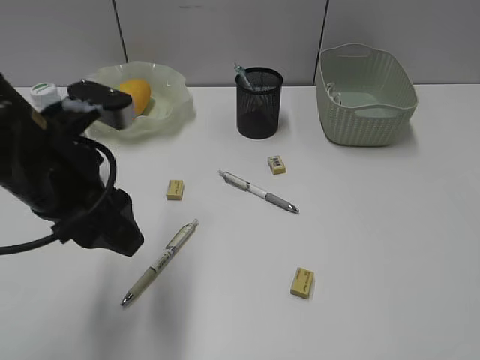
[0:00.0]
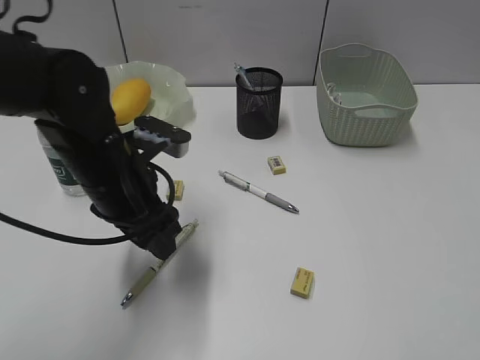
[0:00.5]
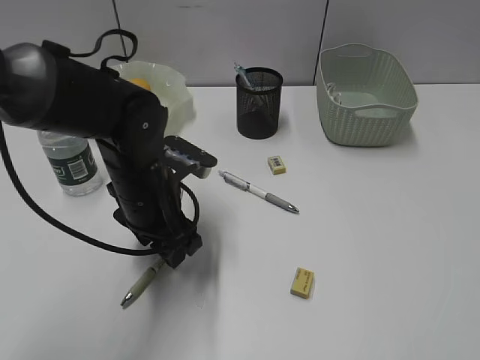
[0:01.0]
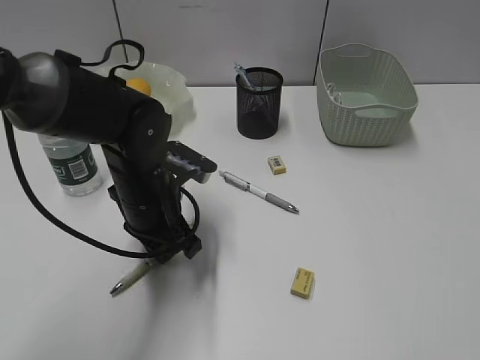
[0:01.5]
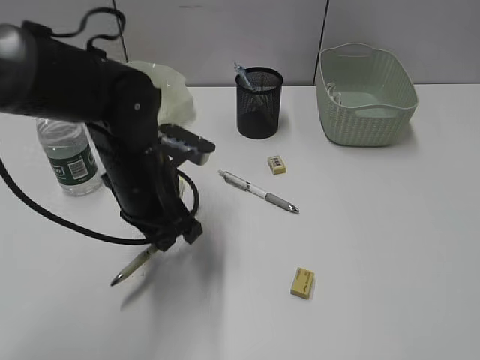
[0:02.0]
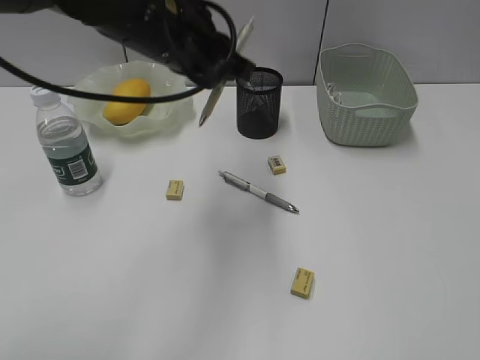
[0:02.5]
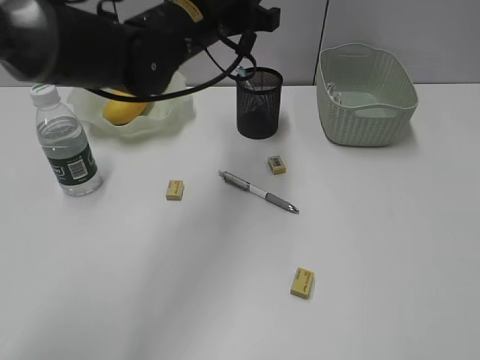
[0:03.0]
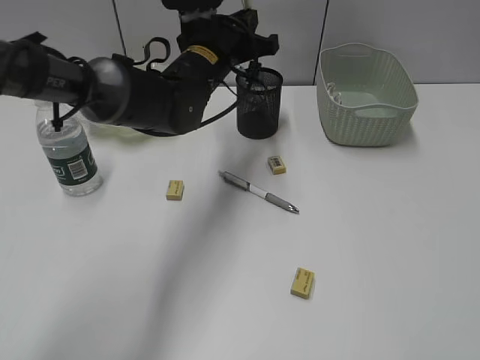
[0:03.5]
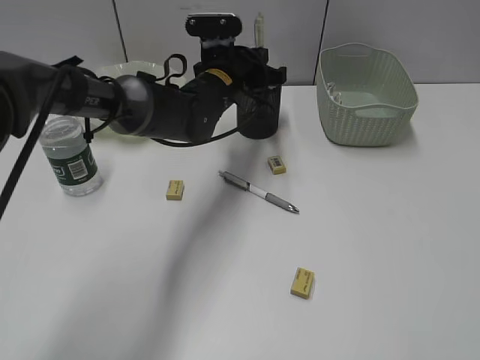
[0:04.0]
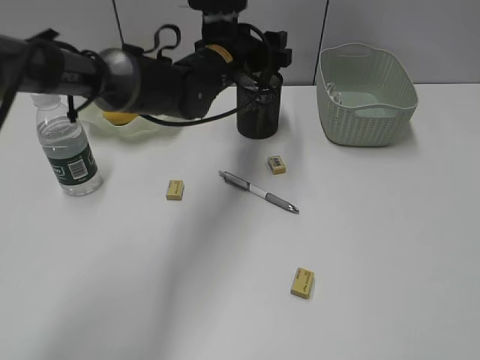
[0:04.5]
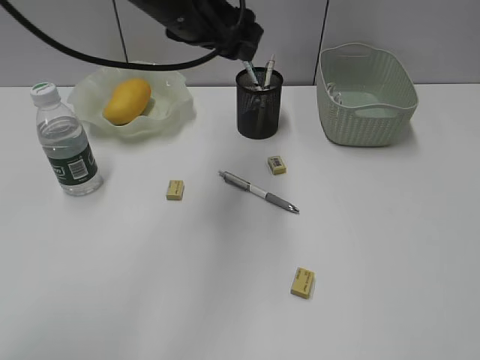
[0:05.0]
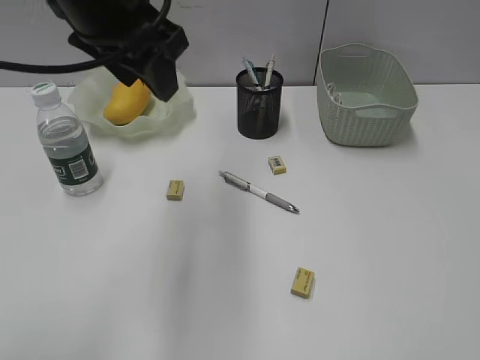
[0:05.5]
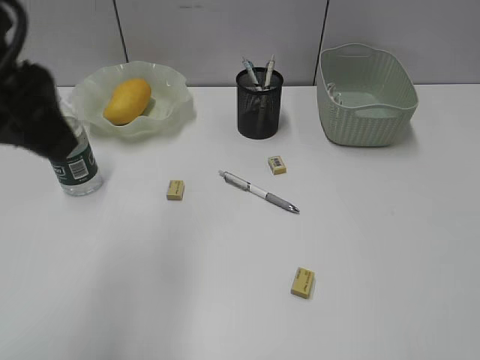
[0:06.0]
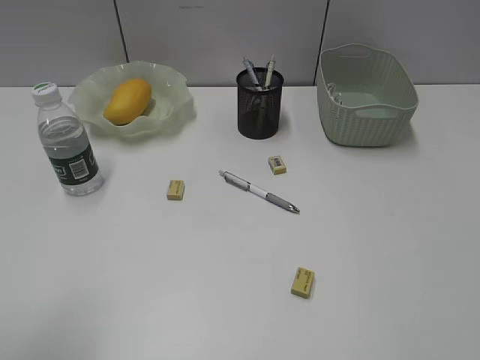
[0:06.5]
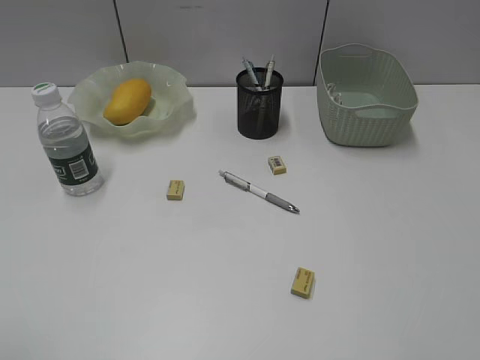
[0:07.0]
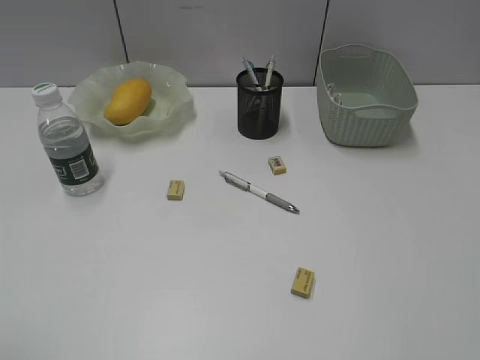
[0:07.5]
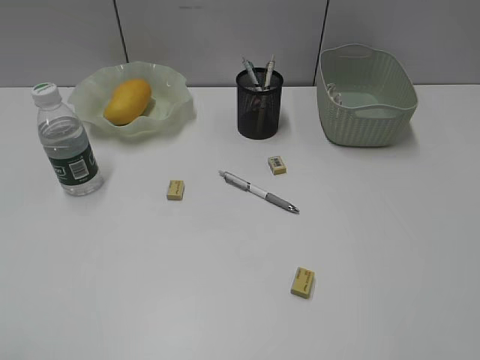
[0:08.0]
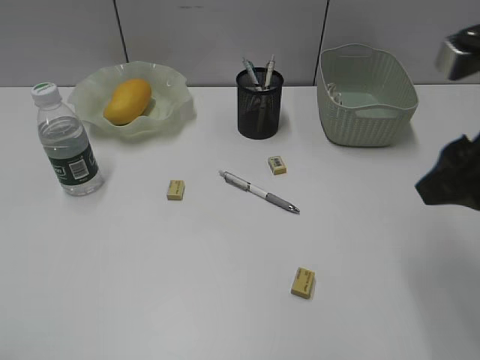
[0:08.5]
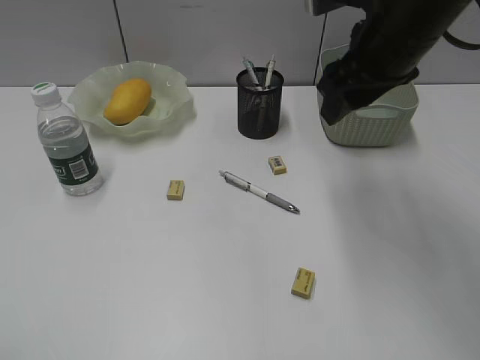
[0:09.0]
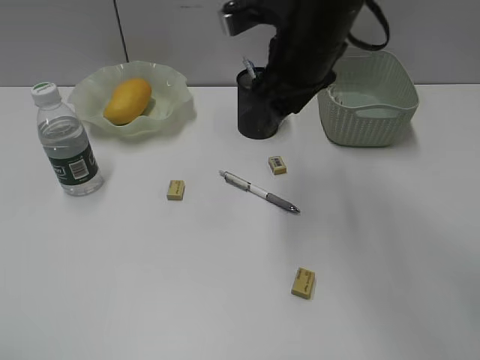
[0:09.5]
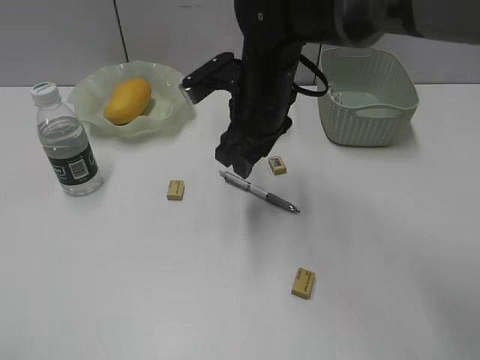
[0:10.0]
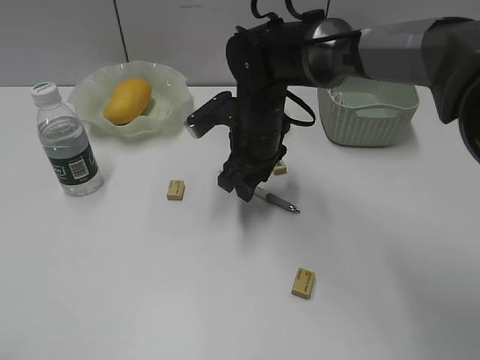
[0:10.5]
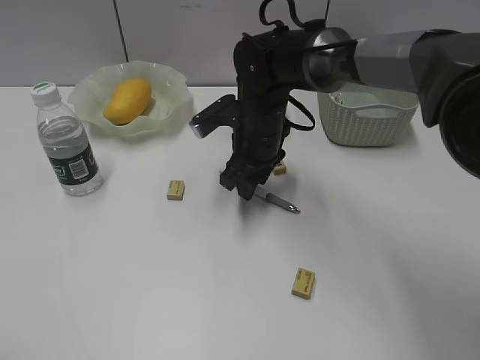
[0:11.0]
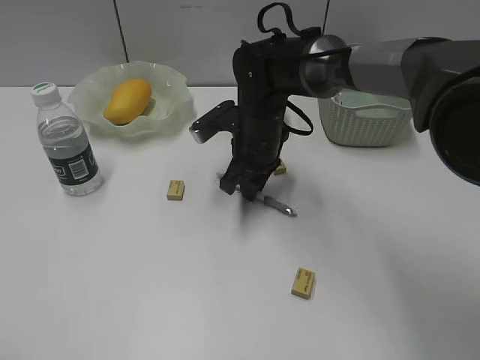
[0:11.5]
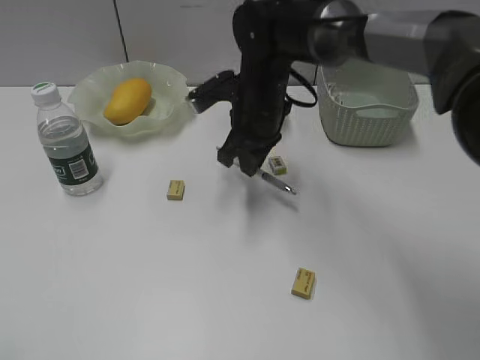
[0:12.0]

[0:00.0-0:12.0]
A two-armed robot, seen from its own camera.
Step, 0:02.0 to 0:04.0: Place the yellow pen in pen holder with left gripper.
Step, 0:04.5 to 0:11.5: Grasp the gray pen with right gripper.
0:00.0 to 0:02.0: The left gripper heads downward, to the right and forward, covering about 15 cm, and closes.
0:02.0 to 0:04.0: The left gripper shifts some 20 cm forward and to the right.
0:04.0 to 0:06.0: The left gripper is displaced backward, upward and to the left by some 35 cm, and opens its fingers.
0:06.0 to 0:08.0: The left gripper heads backward and to the left, covering about 25 cm.
0:08.0 to 0:10.0: The right gripper moves forward and to the left, about 40 cm.
0:10.0 to 0:12.0: The right gripper closes up.

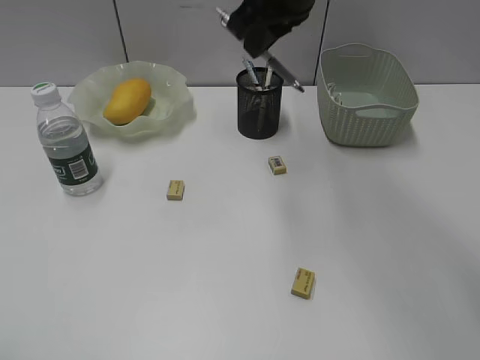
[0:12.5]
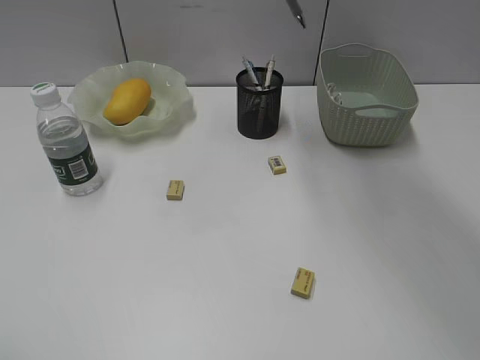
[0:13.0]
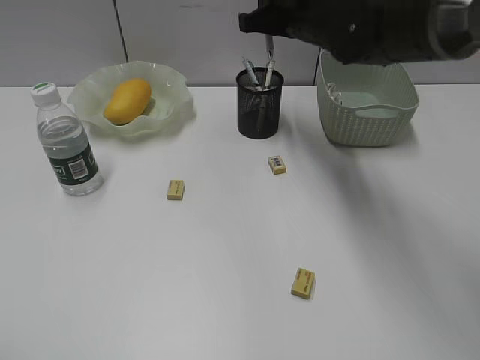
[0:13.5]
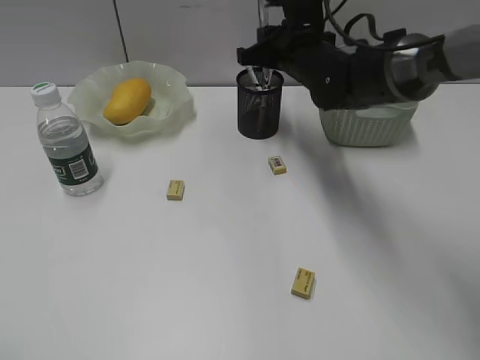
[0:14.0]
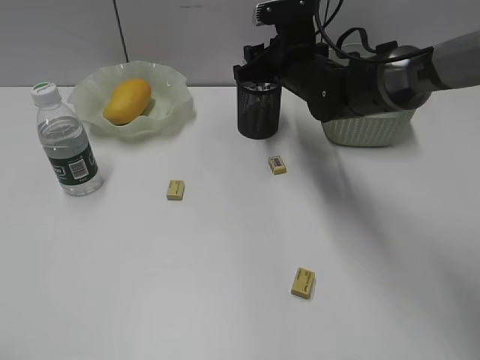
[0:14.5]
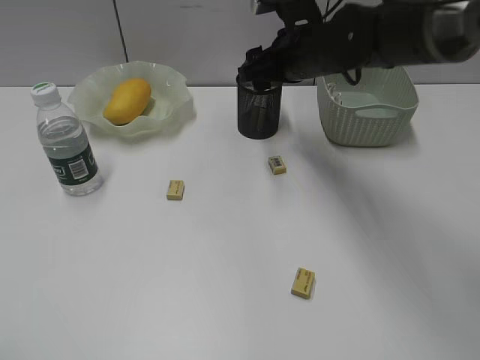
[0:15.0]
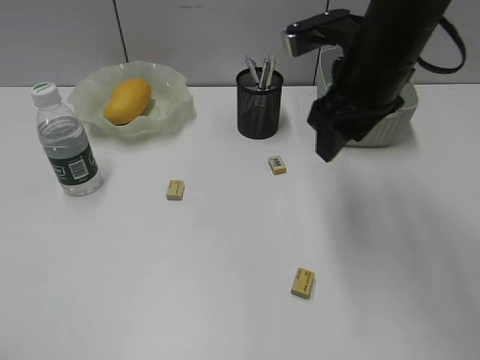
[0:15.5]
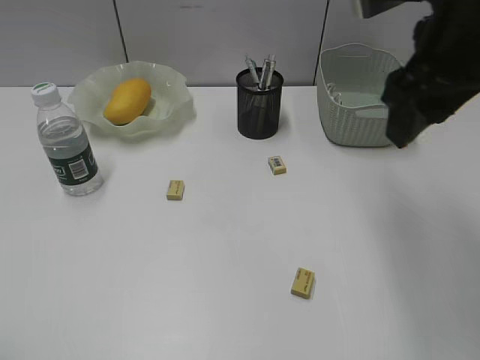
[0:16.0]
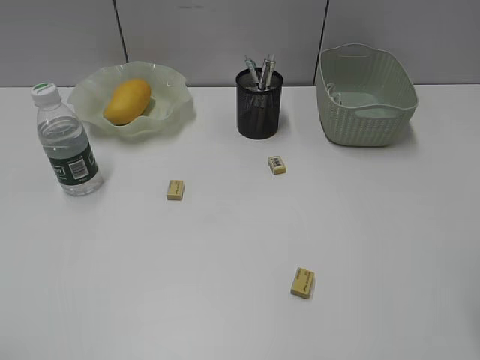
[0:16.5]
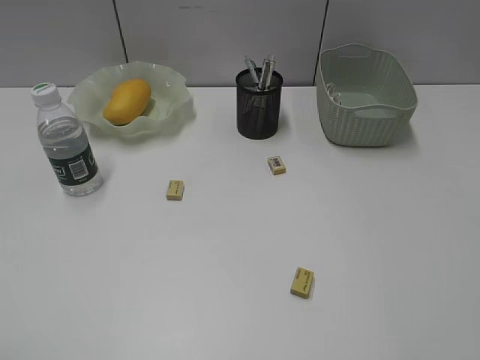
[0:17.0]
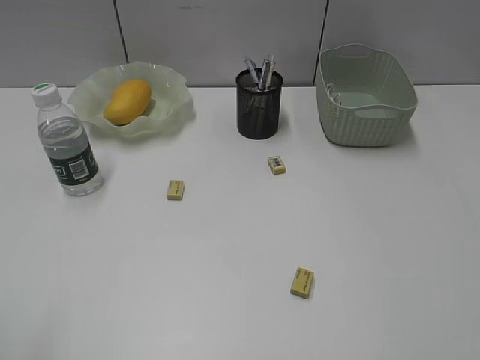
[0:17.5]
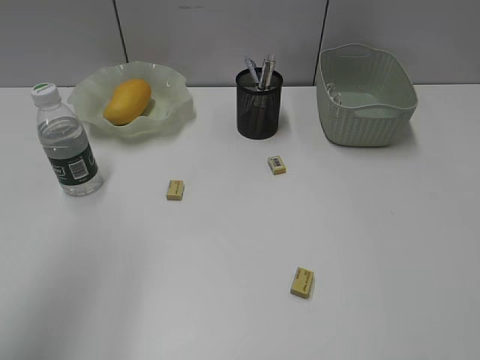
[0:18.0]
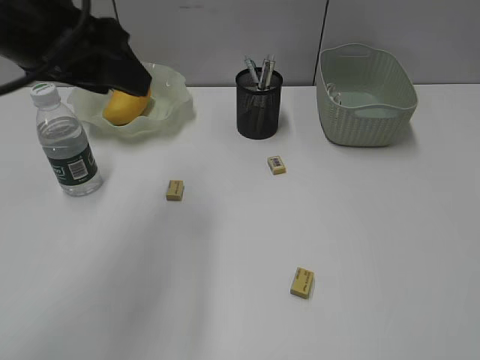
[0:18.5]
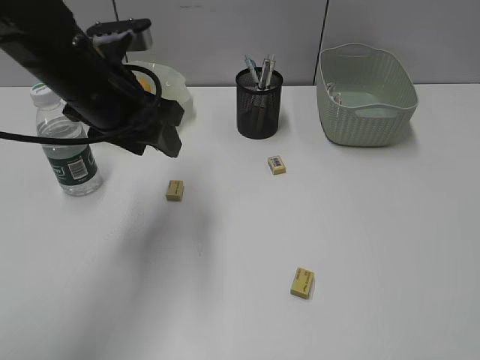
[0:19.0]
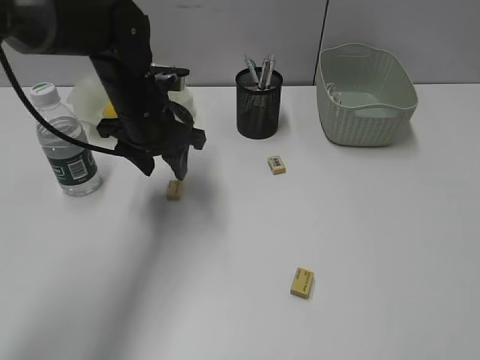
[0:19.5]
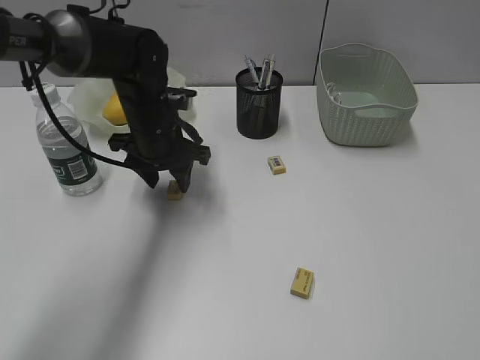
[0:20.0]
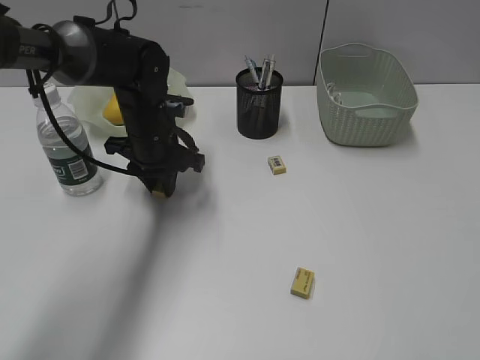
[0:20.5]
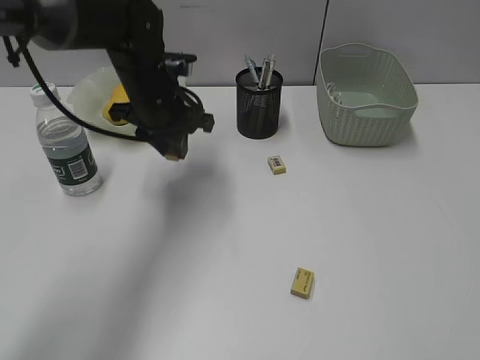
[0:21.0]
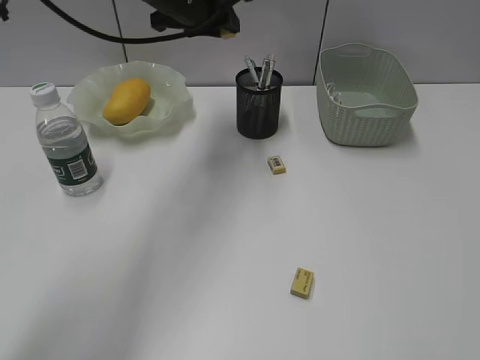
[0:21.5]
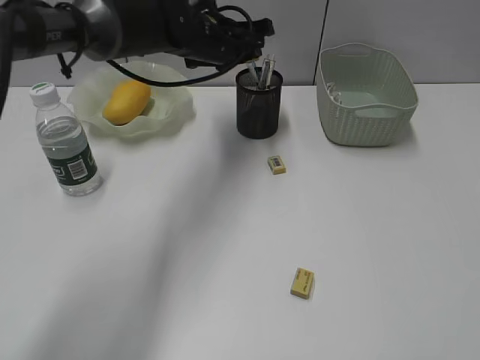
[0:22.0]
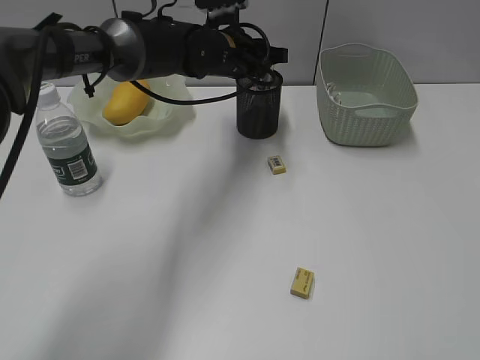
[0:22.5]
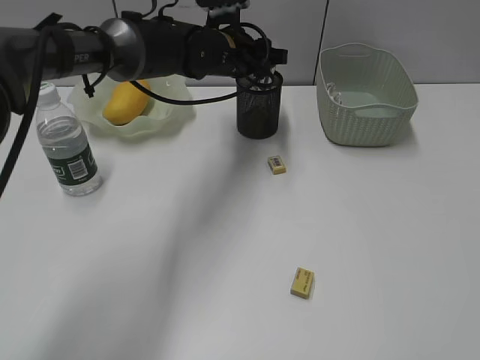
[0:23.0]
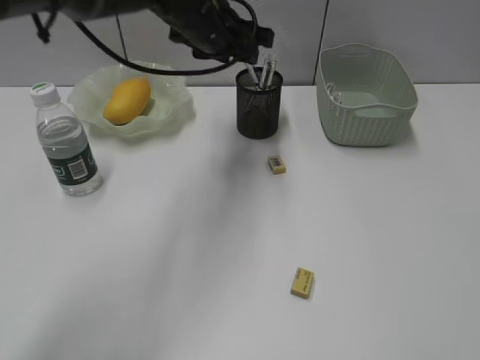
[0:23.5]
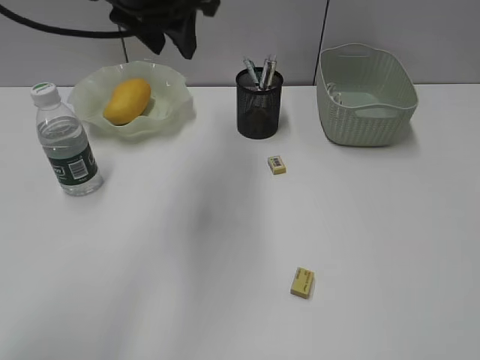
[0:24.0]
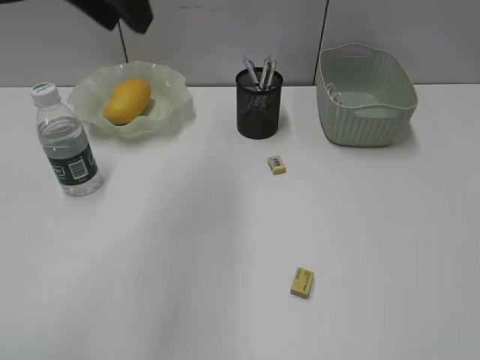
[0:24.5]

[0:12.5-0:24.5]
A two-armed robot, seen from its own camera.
Step, 0:12.5 to 0:14.5: Place the gray pen in pen holder with right gripper.
Step, 0:15.0 to 0:20.5: Grasp the eraser with left gripper.
Step, 0:21.0 to 0:23.0: Place the eraser in pen holder with left gripper.
0:12.5 to 0:14.5: The right gripper goes approximately 15 cm downward and forward, and opens.
0:14.5 to 0:16.5: The right gripper heads backward, upward and to the right, covering approximately 40 cm.
0:16.5 to 0:18.5: The left gripper heads forward and to the right, covering some 30 cm; the right gripper moves backward and to the right, some 15 cm.
0:18.5 to 0:20.5: The left gripper goes roughly 25 cm downward and forward, and closes.
0:20.5 to 0:22.5: The left gripper heads to the right, forward and upward, covering some 15 cm.
0:22.5 to 0:24.5: The left gripper shifts about 30 cm upward, backward and to the left.

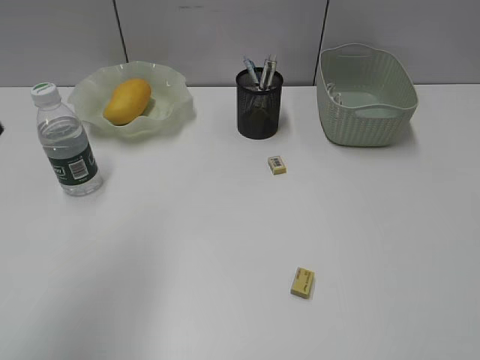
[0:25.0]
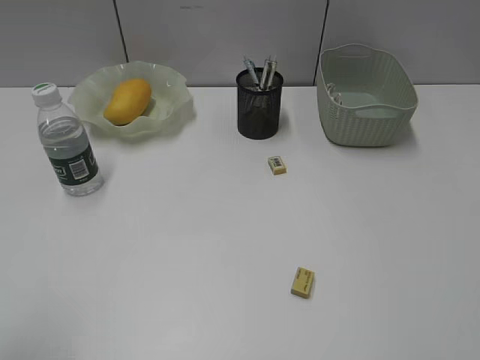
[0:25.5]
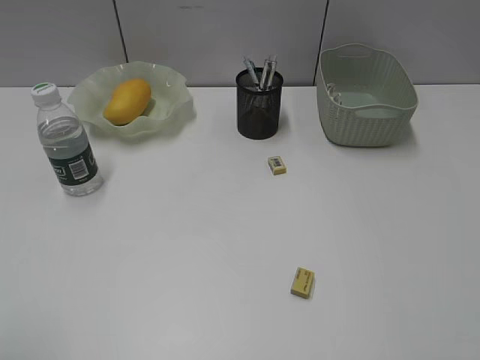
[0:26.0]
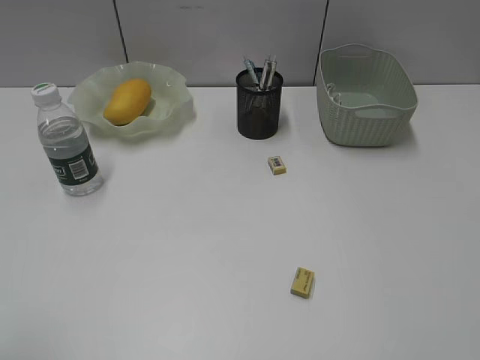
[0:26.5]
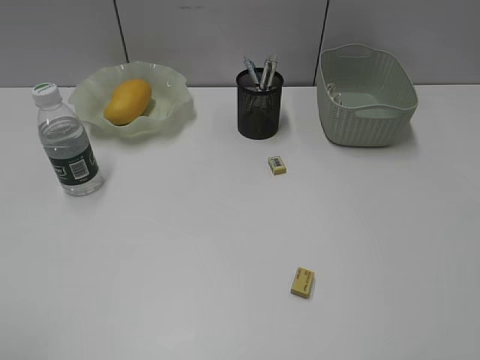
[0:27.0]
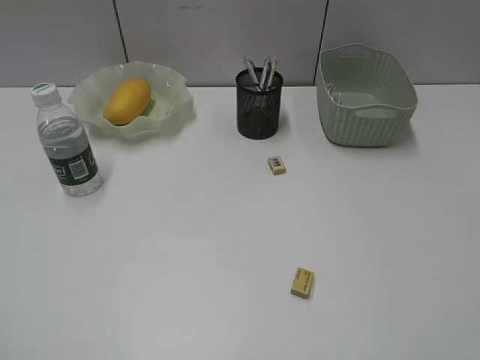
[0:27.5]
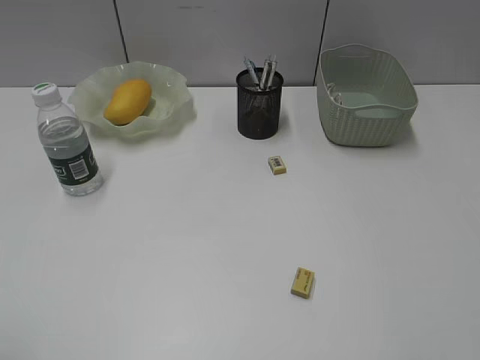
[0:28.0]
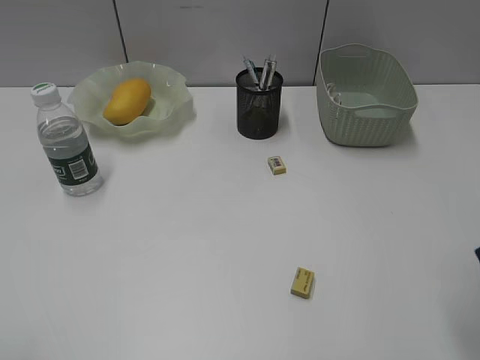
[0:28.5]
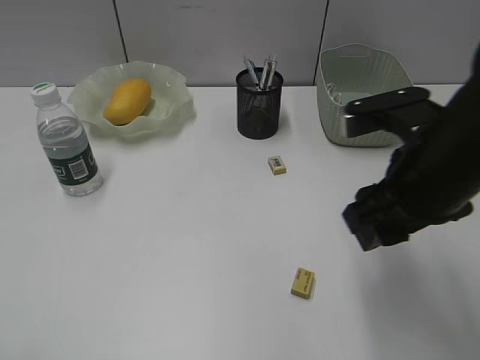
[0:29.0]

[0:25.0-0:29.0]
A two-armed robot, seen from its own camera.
0:25.0 to 0:27.0: The left gripper heads backward, to the left and downward, covering about 20 cm.
0:27.0 to 0:29.0: The right gripper shifts some 25 cm forward and to the left.
